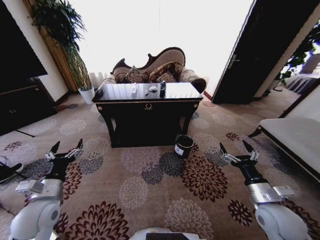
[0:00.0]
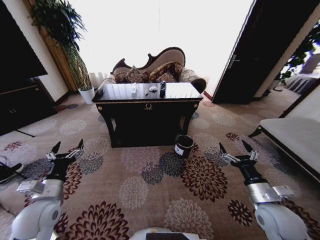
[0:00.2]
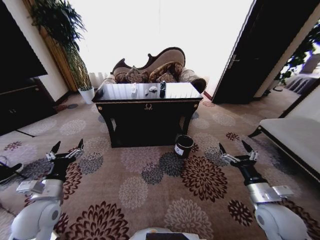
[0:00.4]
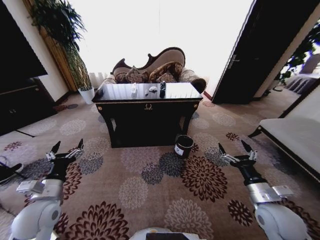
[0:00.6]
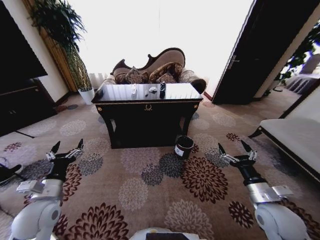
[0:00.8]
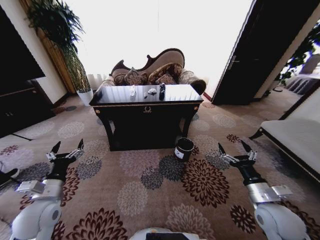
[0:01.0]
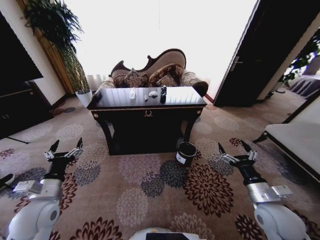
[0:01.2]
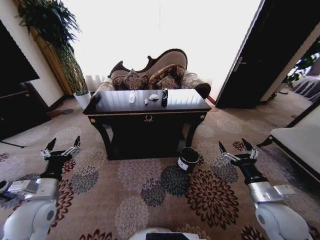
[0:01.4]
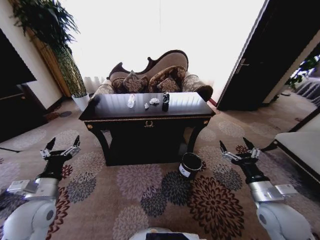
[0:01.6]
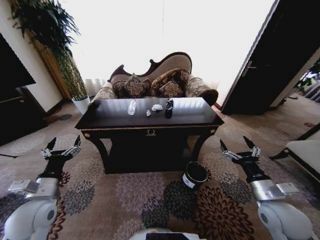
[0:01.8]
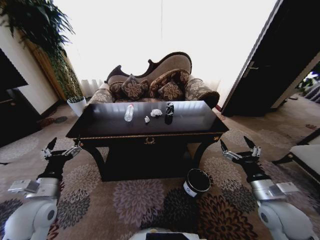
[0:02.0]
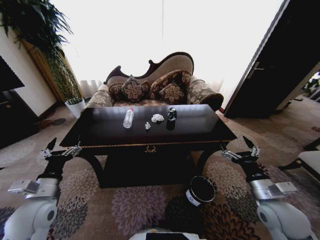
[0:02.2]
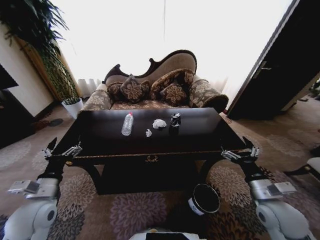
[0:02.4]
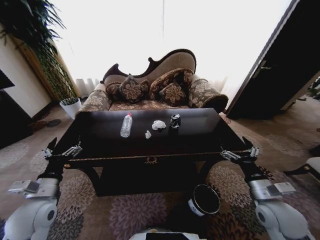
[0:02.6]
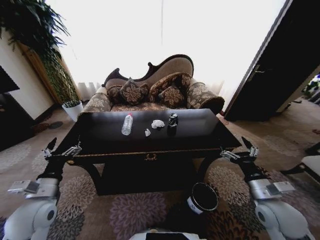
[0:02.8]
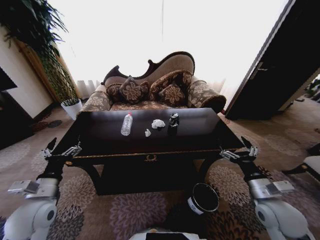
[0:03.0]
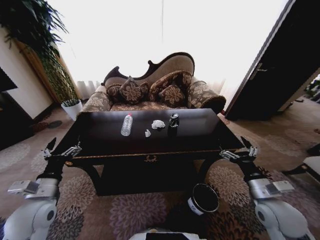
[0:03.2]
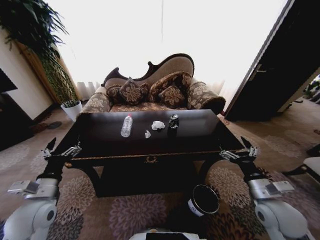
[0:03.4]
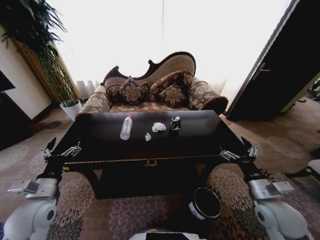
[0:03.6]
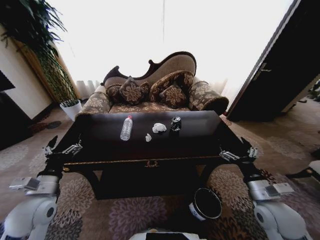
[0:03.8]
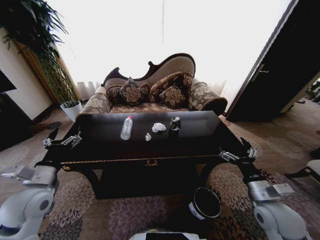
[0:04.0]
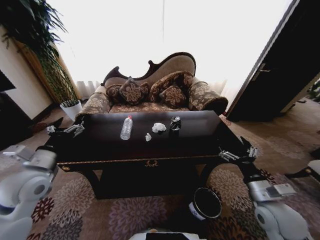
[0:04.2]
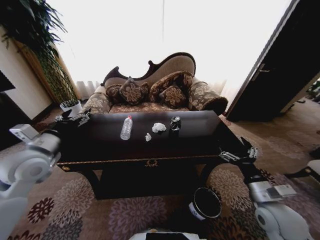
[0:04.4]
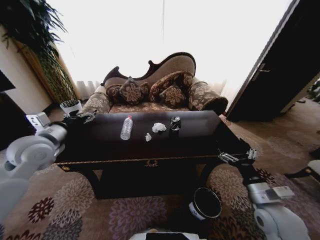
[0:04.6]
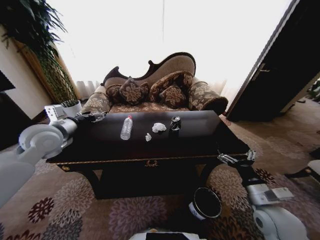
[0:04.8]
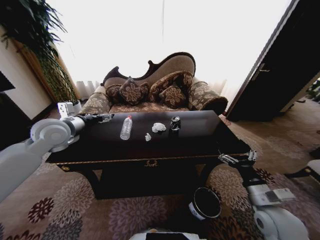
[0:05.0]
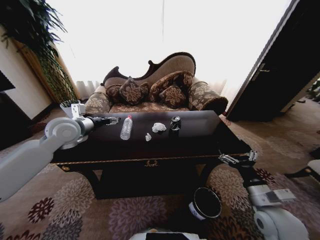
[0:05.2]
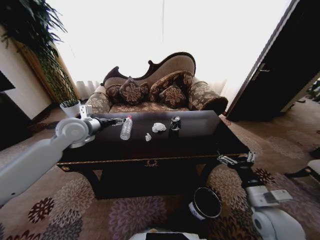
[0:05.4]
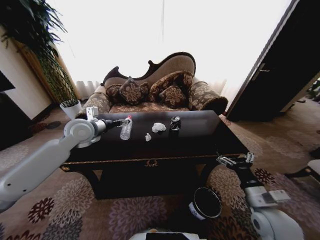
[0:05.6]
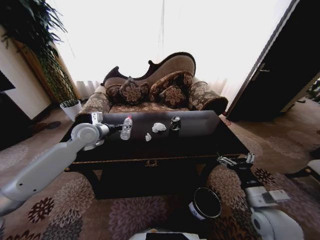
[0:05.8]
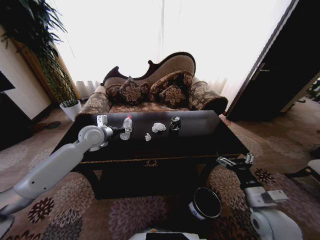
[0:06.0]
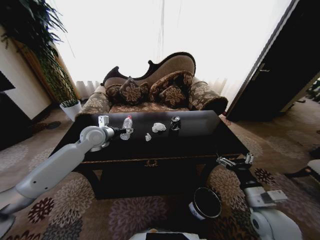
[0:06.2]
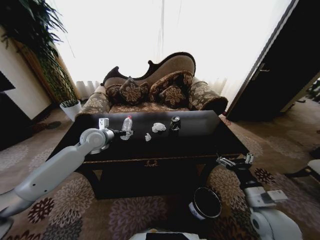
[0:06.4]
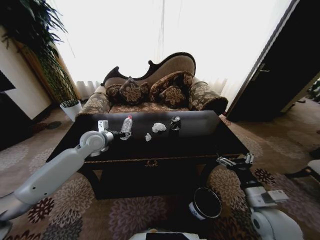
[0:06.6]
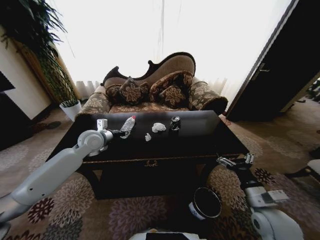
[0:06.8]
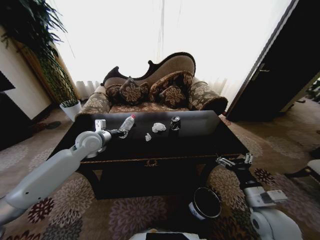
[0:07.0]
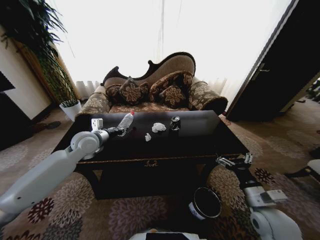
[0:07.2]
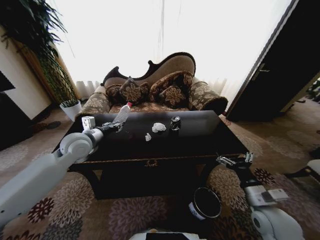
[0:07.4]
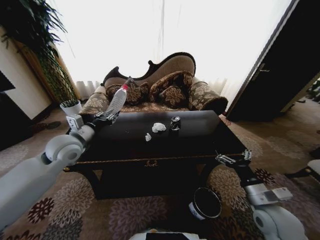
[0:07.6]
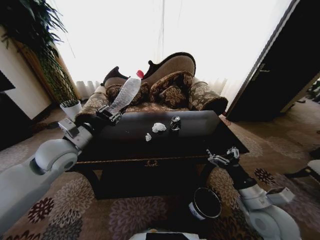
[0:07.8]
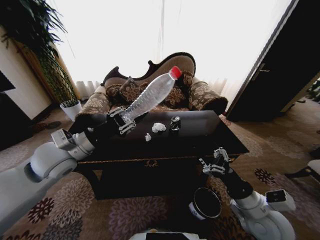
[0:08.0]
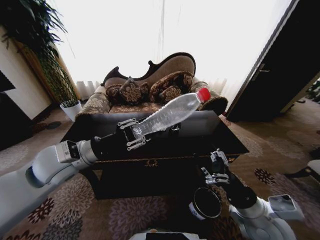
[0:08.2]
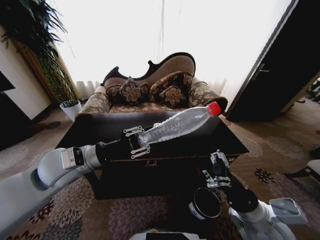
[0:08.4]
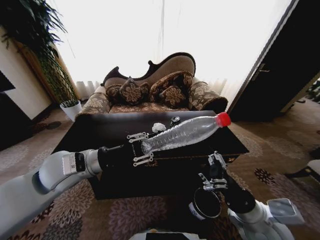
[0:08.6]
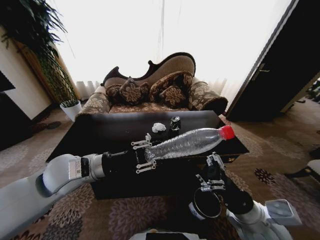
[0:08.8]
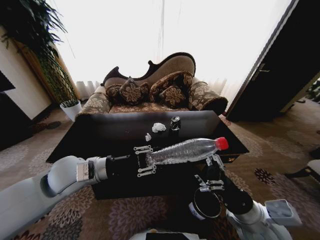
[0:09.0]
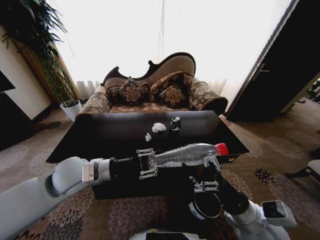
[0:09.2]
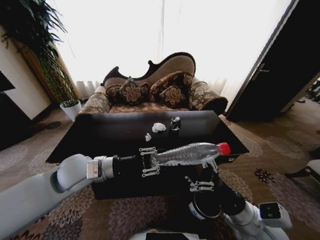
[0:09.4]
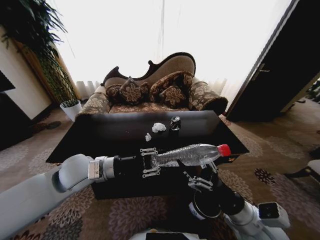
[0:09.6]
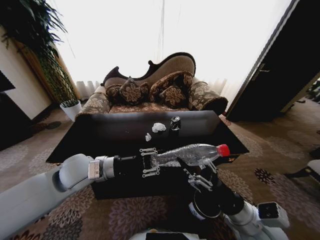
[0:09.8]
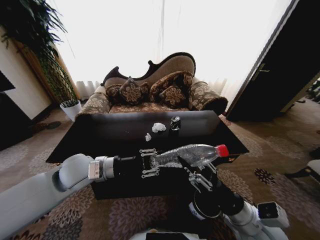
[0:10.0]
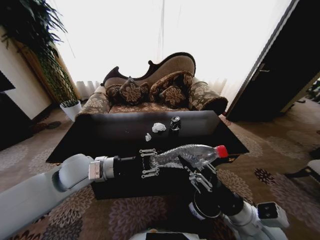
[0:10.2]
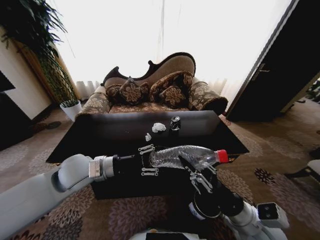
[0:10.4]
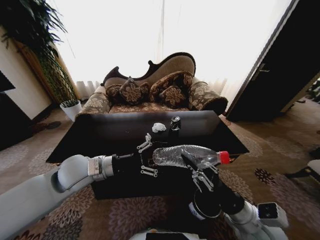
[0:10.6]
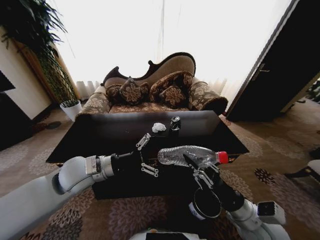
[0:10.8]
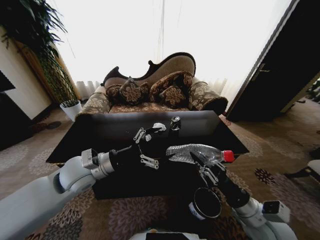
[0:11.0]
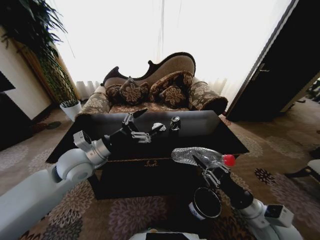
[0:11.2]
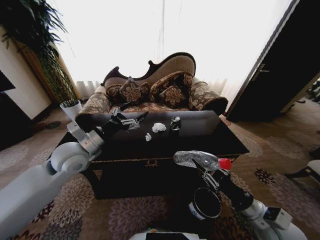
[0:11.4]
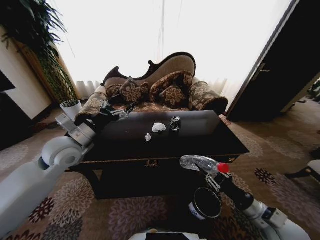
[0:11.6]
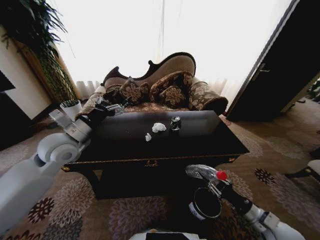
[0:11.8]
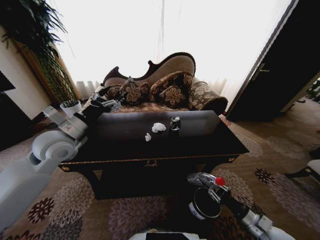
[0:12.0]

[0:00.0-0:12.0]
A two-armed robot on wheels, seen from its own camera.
Task of the whole recording: Move to the front of the table and place the trash on the table into the trash bin.
0:03.0 to 0:04.4: The left gripper goes roughly 15 cm upward and forward.
0:04.4 to 0:06.0: The left gripper shifts some 20 cm forward and to the right.
0:06.0 to 0:07.6: The left gripper is displaced backward by approximately 10 cm, and closes up.
0:07.6 to 0:09.0: The left gripper shifts roughly 10 cm backward and to the right. Meanwhile the right gripper goes about 10 cm to the left.
0:09.0 to 0:10.4: The right gripper closes.
0:10.4 to 0:12.0: The right gripper heads to the right and downward, covering approximately 20 cm. The left gripper moves to the left, upward and forward, about 10 cm, and opens up.

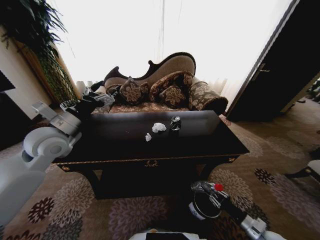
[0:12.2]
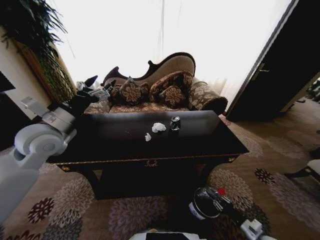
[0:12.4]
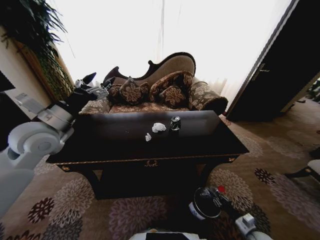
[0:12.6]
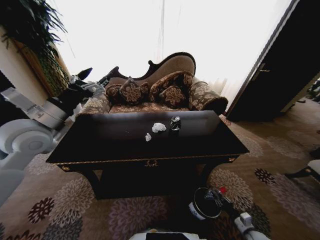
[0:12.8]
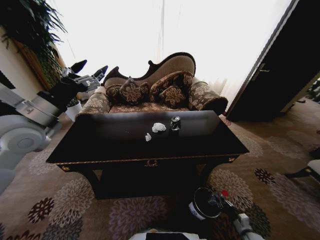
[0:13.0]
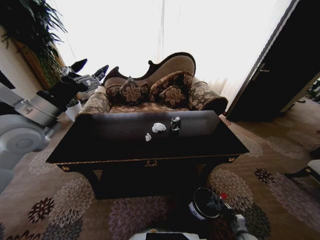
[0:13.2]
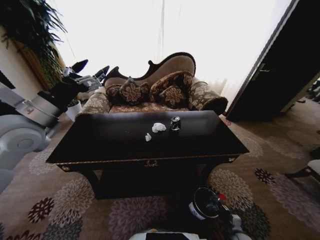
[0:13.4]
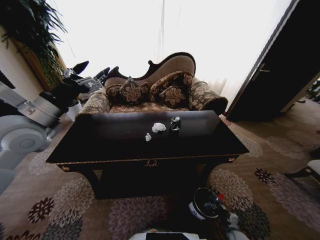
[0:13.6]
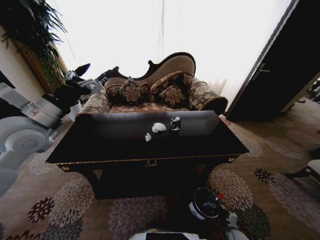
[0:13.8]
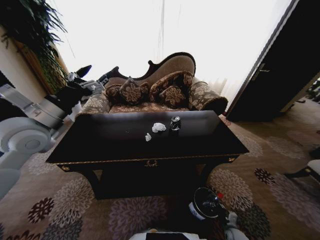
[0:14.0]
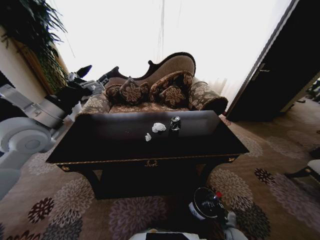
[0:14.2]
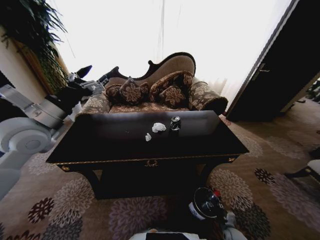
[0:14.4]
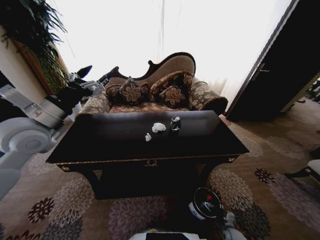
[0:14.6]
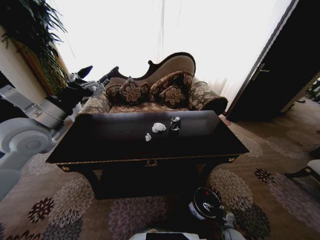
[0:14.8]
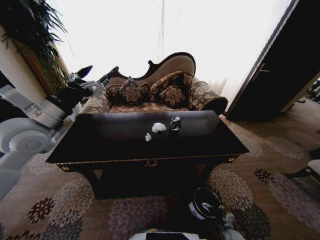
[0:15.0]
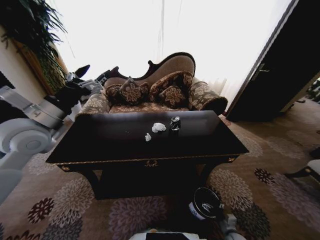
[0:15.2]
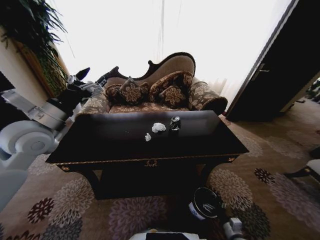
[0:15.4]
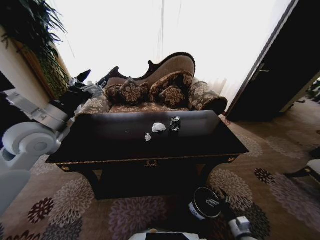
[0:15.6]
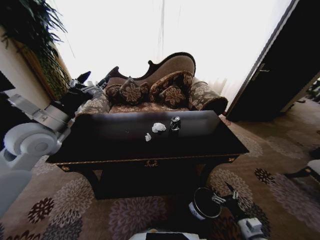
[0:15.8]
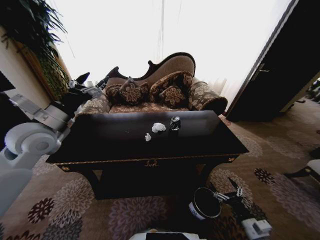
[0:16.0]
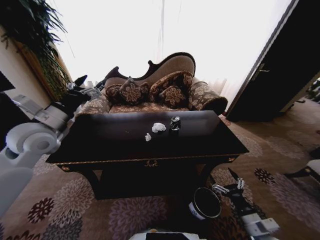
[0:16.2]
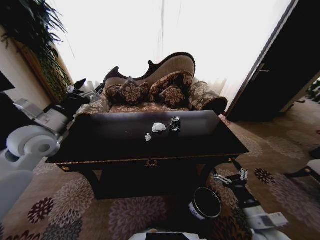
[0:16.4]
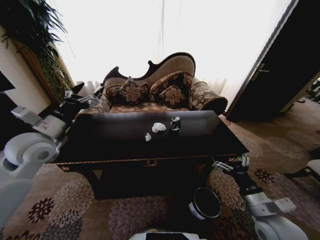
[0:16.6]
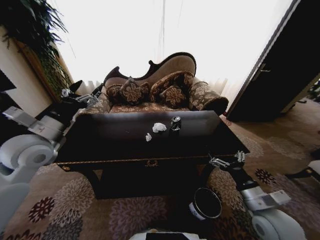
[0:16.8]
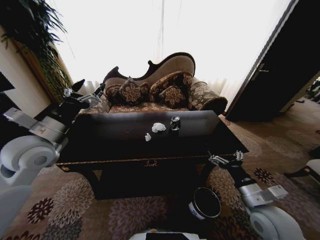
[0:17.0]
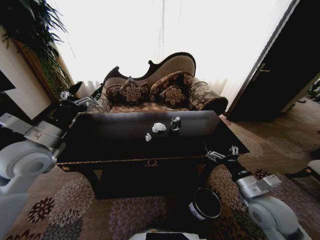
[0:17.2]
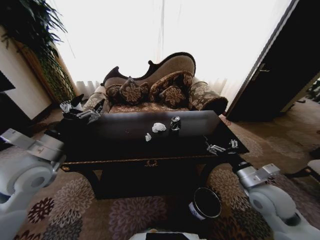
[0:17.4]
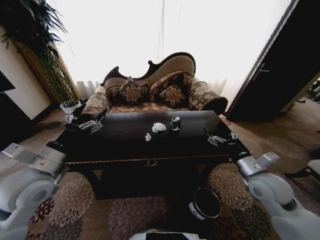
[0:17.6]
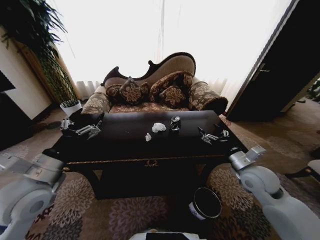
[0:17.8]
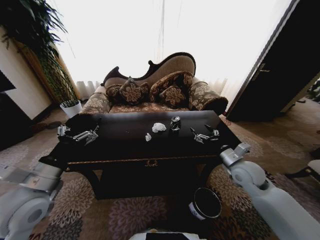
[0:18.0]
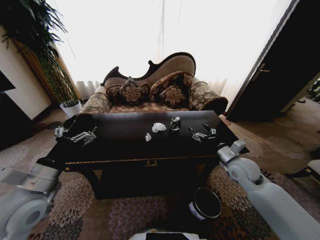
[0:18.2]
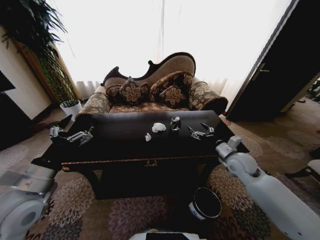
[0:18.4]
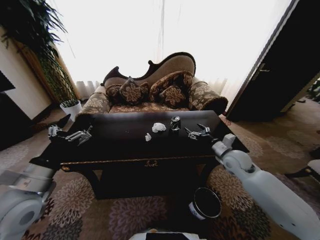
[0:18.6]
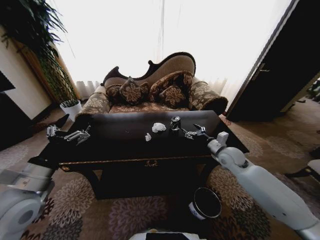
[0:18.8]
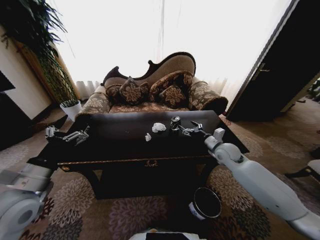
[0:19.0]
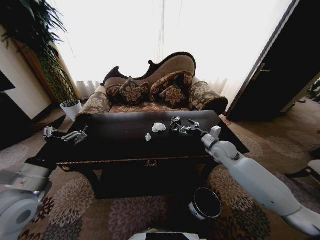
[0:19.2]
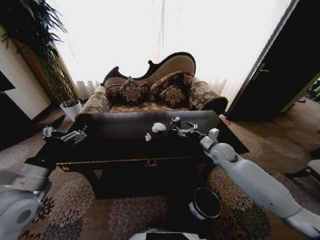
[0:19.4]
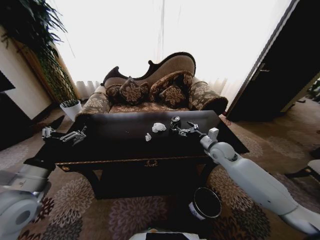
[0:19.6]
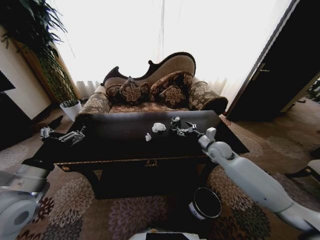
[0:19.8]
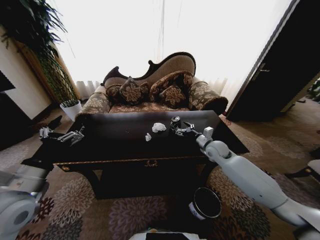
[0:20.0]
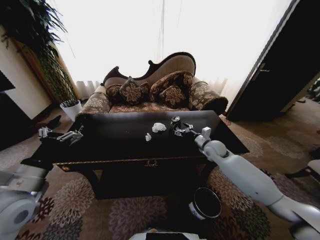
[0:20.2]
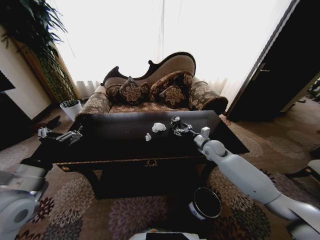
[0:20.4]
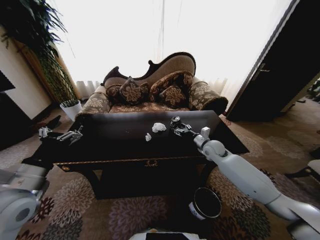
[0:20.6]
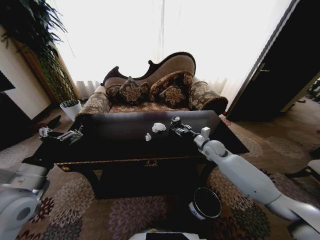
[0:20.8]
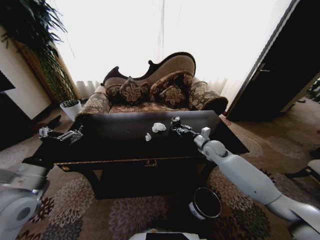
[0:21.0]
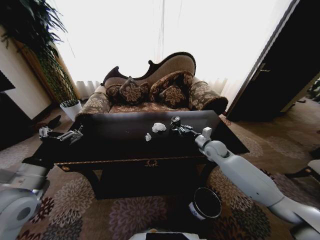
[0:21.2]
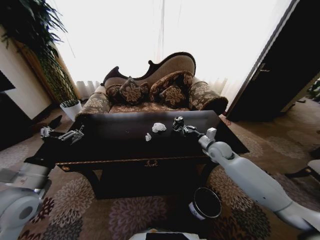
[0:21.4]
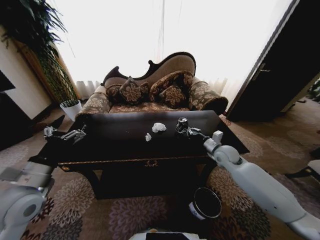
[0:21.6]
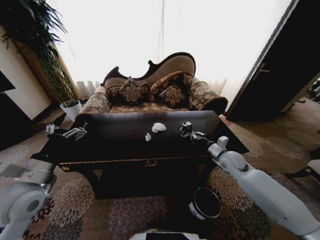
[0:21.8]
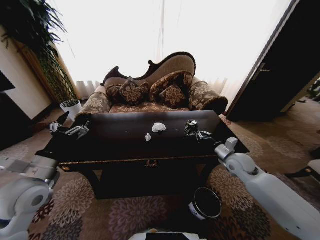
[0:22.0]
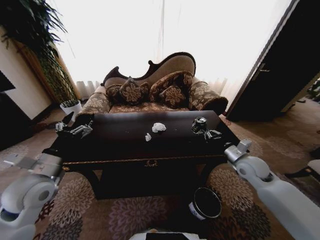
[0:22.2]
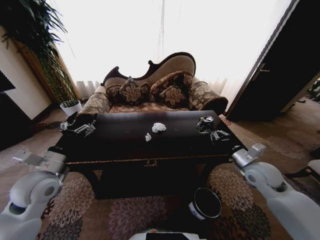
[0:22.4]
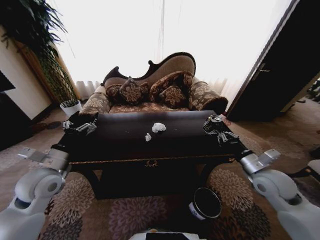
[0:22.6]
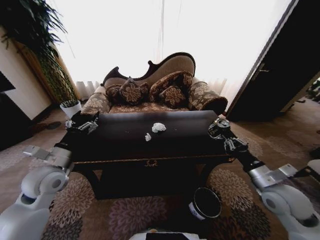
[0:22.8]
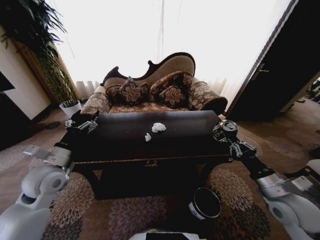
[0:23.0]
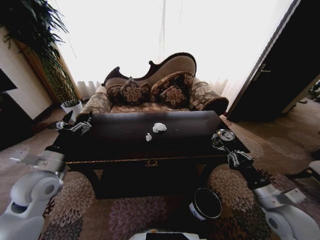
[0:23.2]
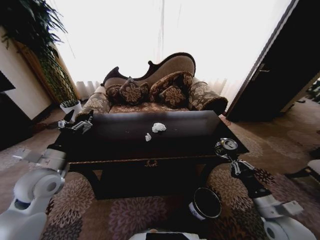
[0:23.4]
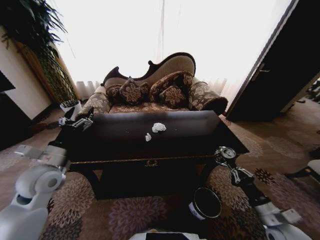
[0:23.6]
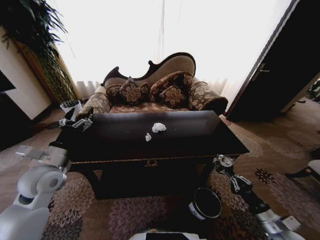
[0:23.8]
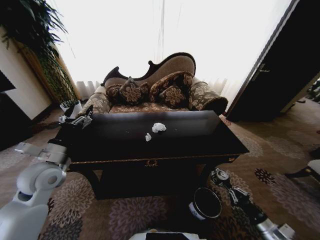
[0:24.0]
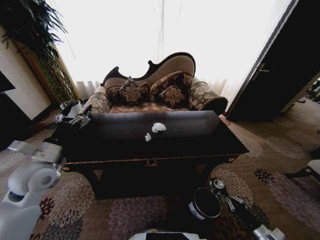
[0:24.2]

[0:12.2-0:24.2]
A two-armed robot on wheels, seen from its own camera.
Task of the whole recording: Move to the front of the table and place the trash on the table into the trash bin.
0:12.2 to 0:13.8: The left gripper moves upward, about 5 cm. Meanwhile the right gripper goes about 20 cm downward.
0:15.2 to 0:16.6: The left gripper changes place by some 5 cm; the right gripper moves upward, about 30 cm.
0:16.6 to 0:18.2: The left gripper travels backward and downward by roughly 15 cm; the right gripper moves forward, approximately 20 cm.
0:18.2 to 0:19.8: The right gripper goes roughly 10 cm forward.
0:19.8 to 0:21.2: The right gripper closes its fingers.
0:21.2 to 0:22.6: The right gripper heads backward and to the right, covering approximately 20 cm. Meanwhile the left gripper is displaced forward by some 5 cm.
0:22.6 to 0:24.2: The right gripper heads downward and backward, covering some 30 cm.
